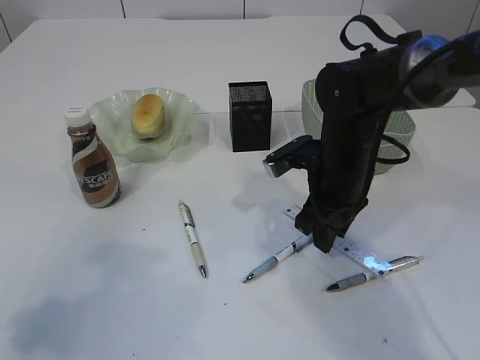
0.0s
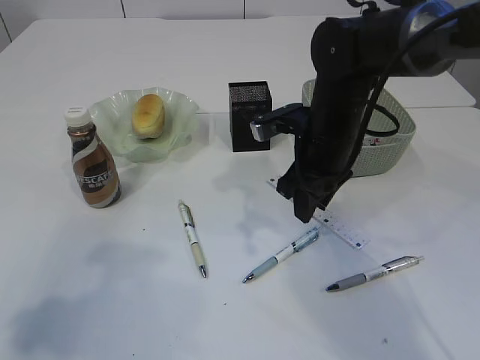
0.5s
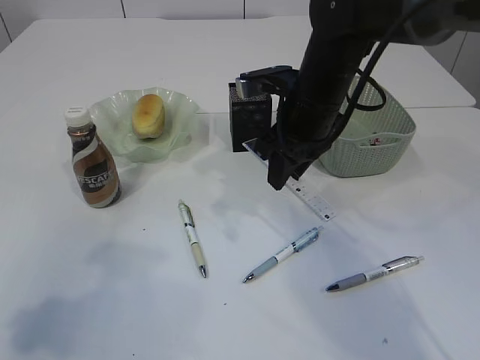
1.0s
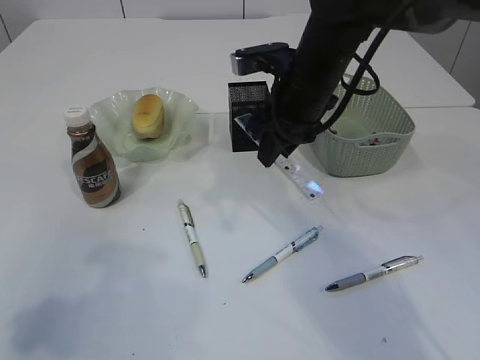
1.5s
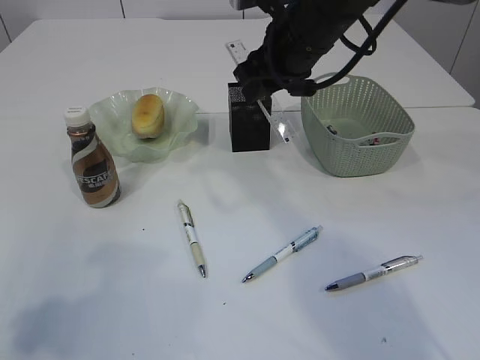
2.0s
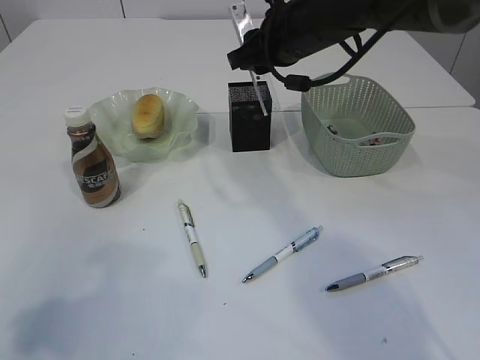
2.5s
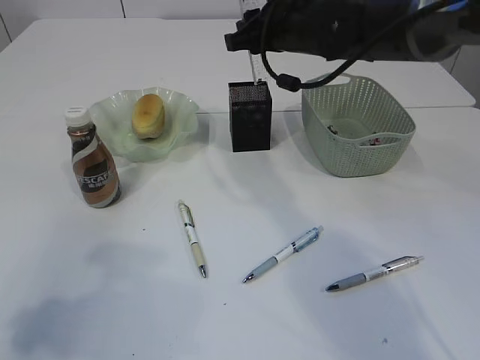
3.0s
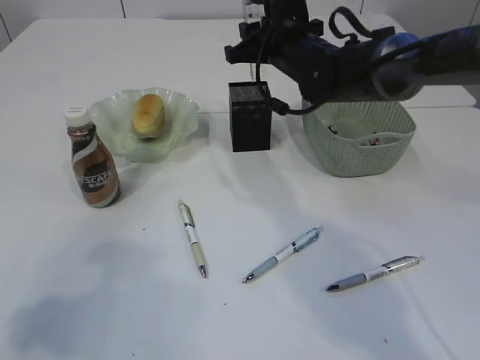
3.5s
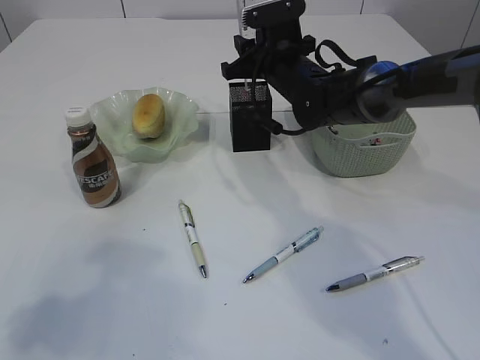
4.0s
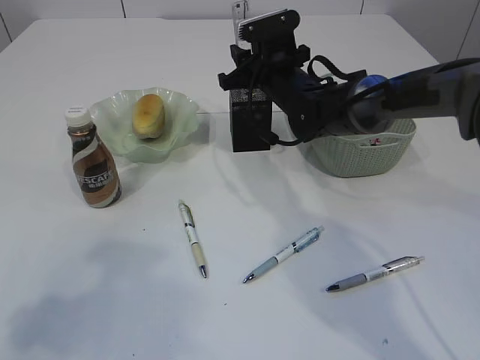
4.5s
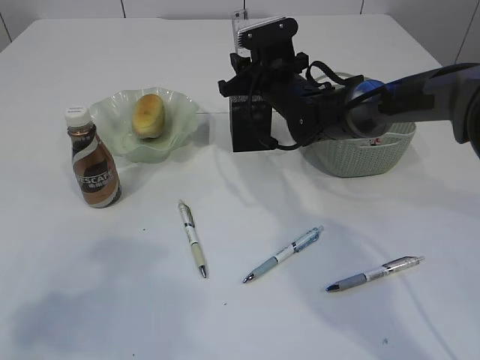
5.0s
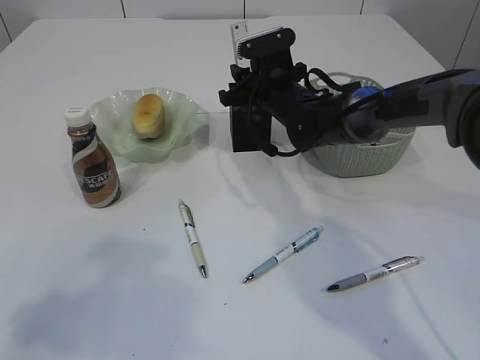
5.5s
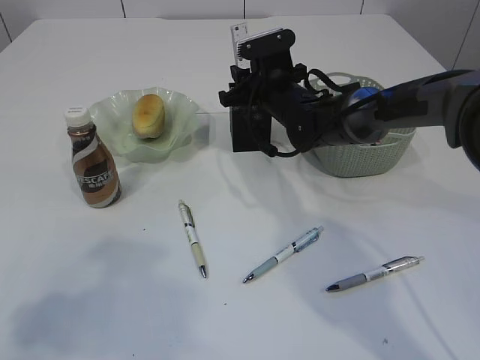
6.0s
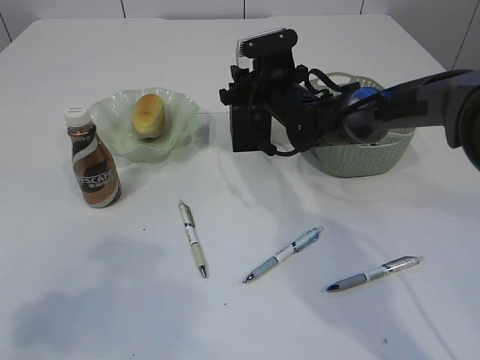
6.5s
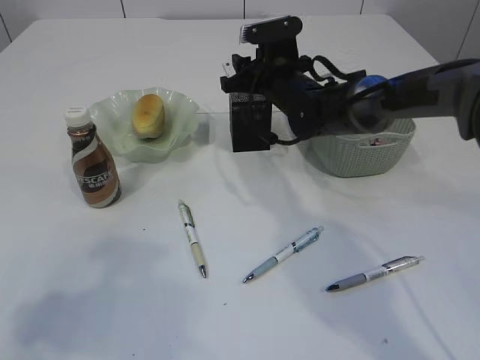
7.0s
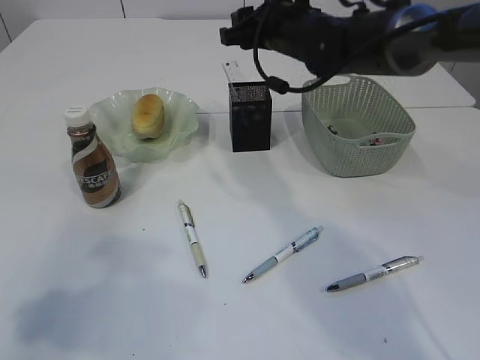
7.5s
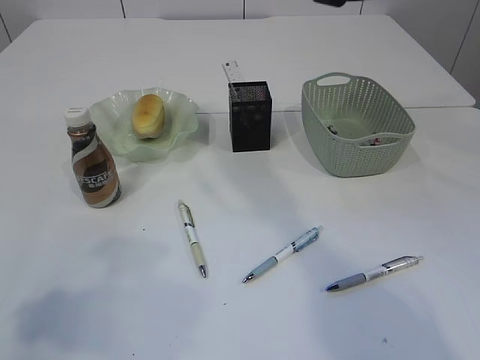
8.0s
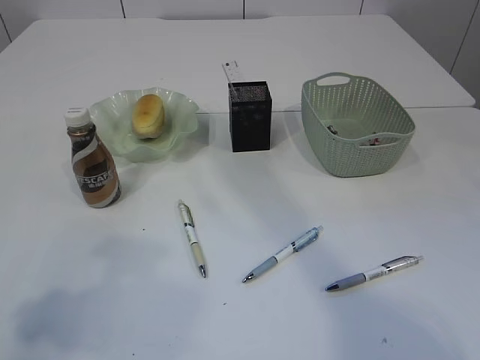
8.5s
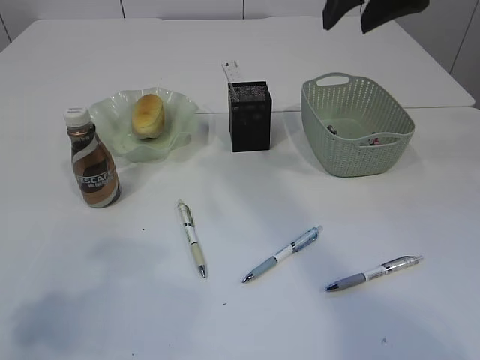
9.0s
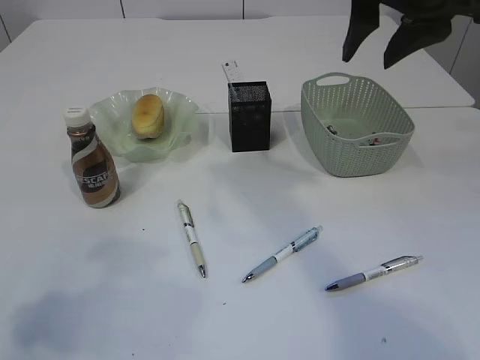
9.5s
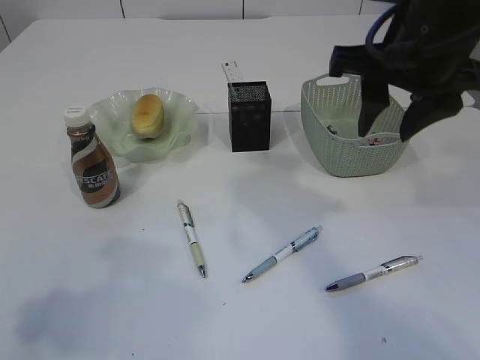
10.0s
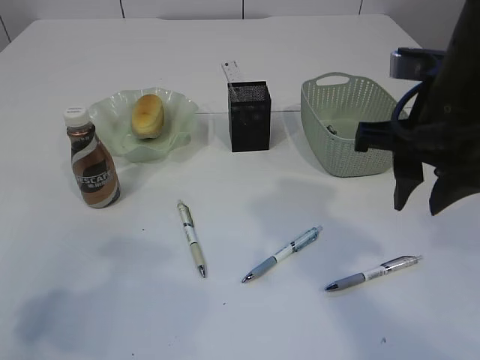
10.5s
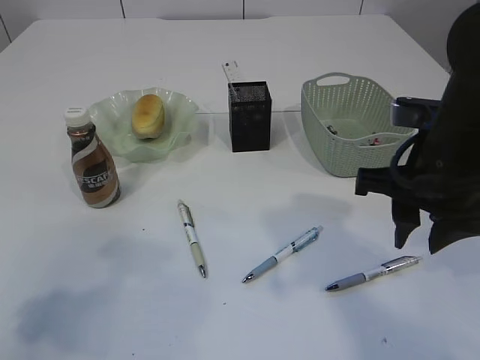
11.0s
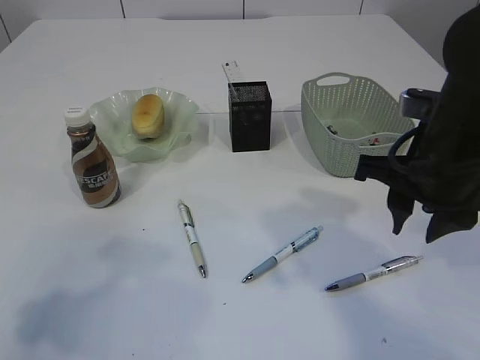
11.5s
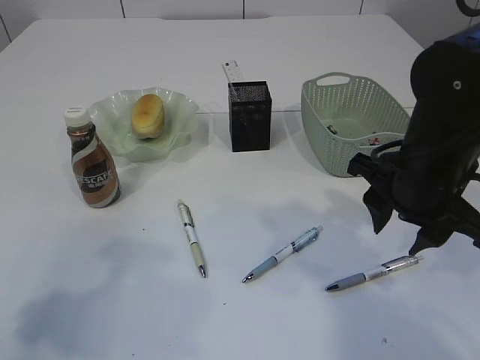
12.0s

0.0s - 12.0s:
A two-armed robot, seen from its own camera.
Step, 1.5s - 7.0s: Place the ruler into the pen holder.
0.0s - 2.0s: The right gripper heads upward and forward, covering roughly 15 cm.
2.0s - 4.0s: The right gripper shifts some 10 cm downward and forward.
4.0s - 6.0s: The grippers move only a little.
6.0s - 8.0s: The right gripper heads upward and backward, covering approximately 25 cm.
8.0s - 10.0s: The right gripper heads backward and to the right, covering roughly 10 cm.
10.0s - 12.0s: The right gripper heads downward, covering about 15 cm.

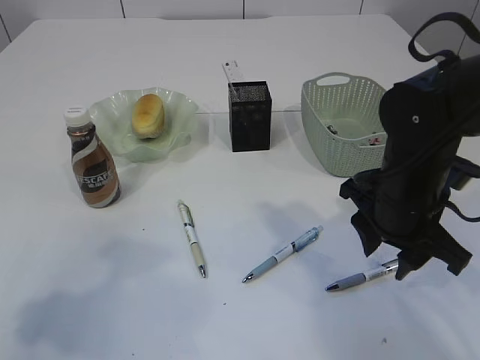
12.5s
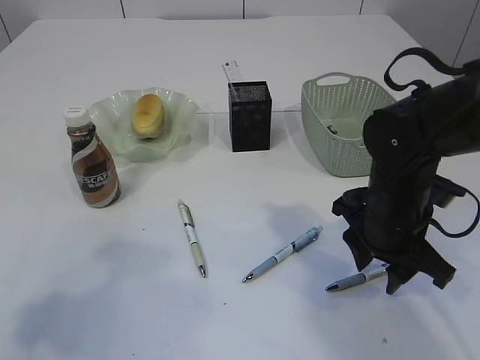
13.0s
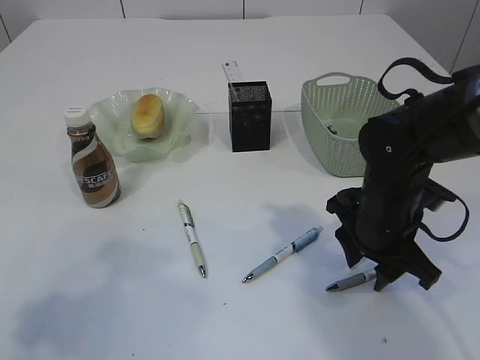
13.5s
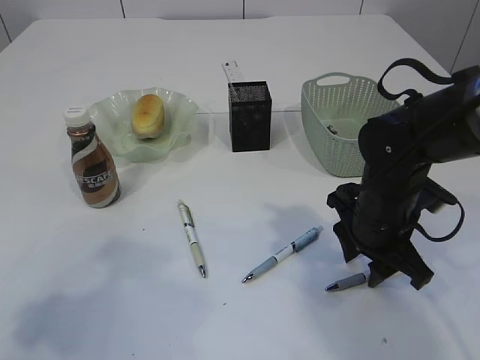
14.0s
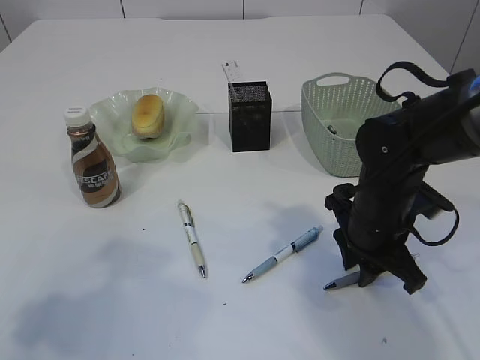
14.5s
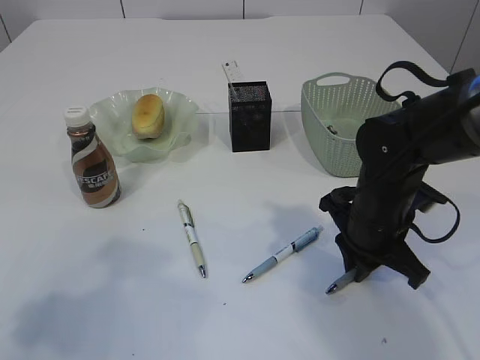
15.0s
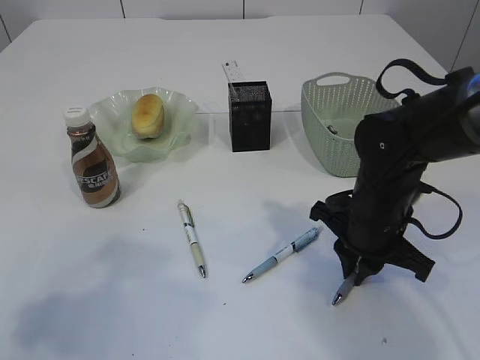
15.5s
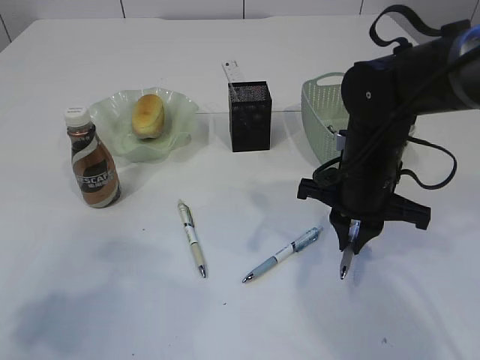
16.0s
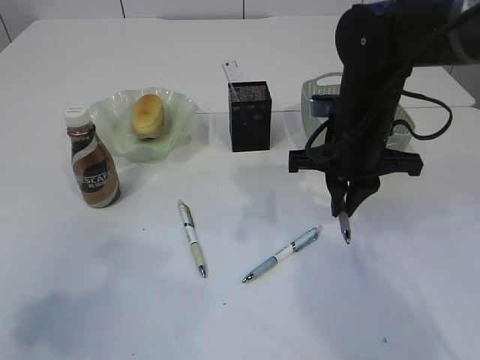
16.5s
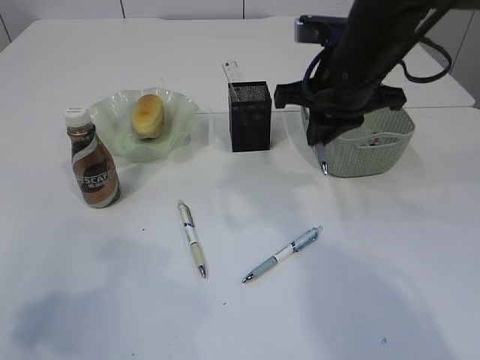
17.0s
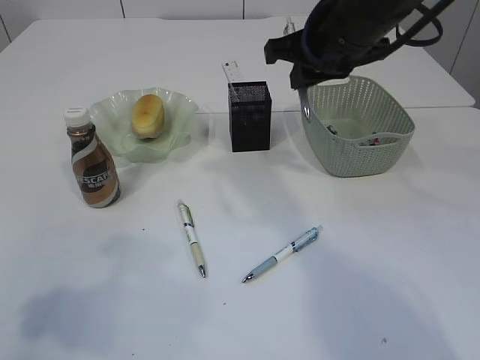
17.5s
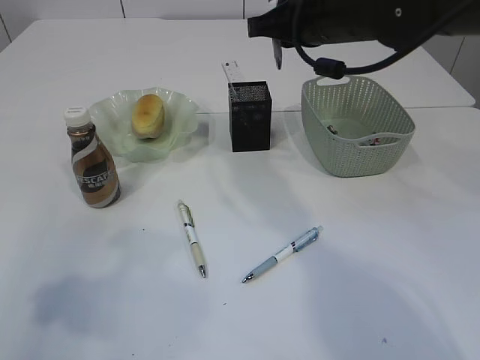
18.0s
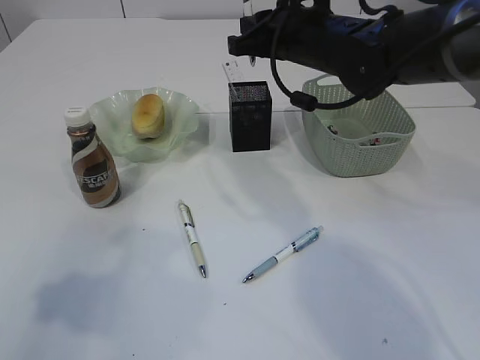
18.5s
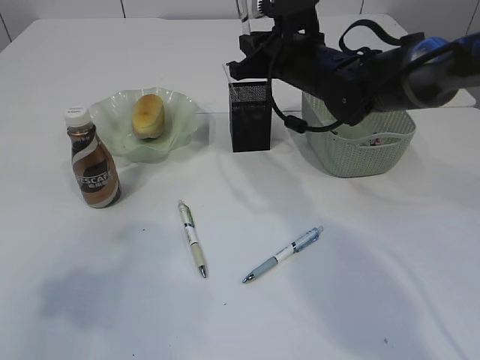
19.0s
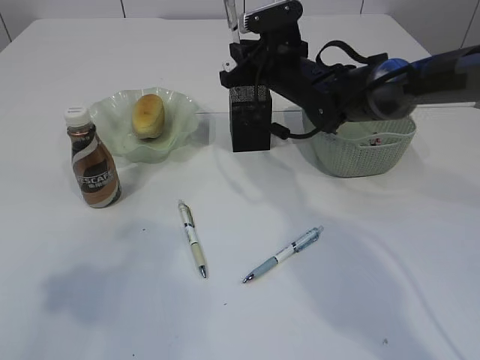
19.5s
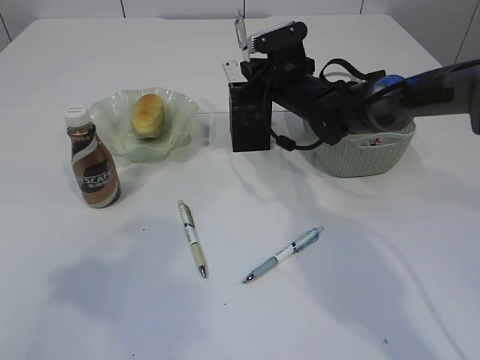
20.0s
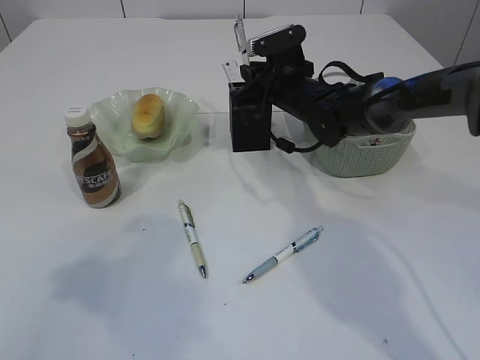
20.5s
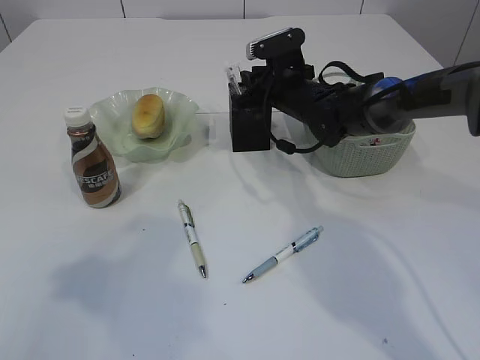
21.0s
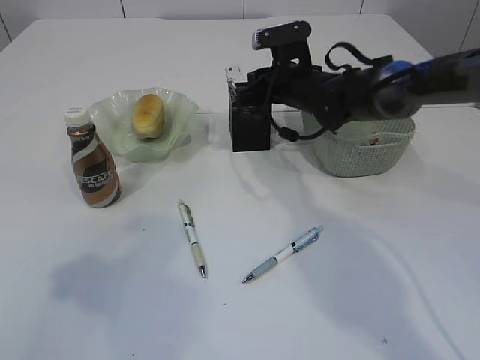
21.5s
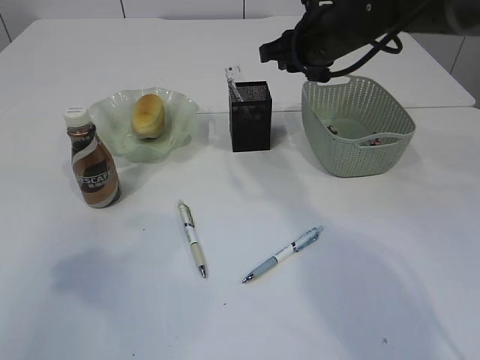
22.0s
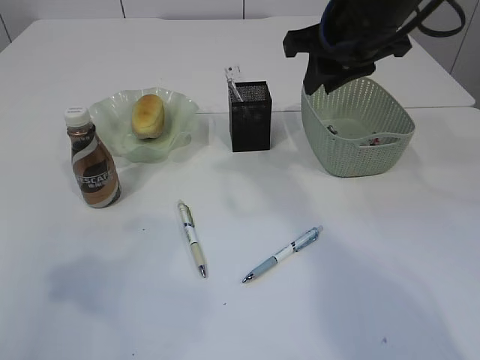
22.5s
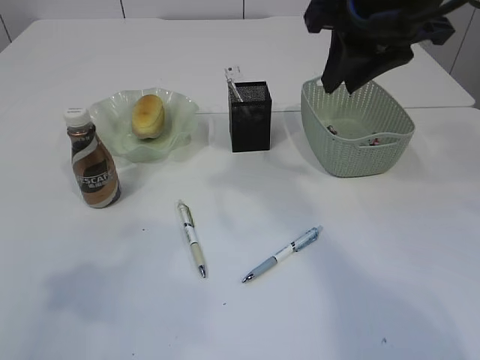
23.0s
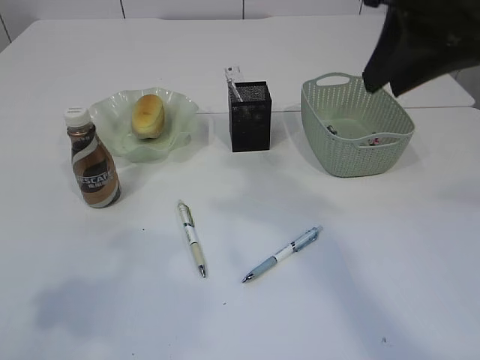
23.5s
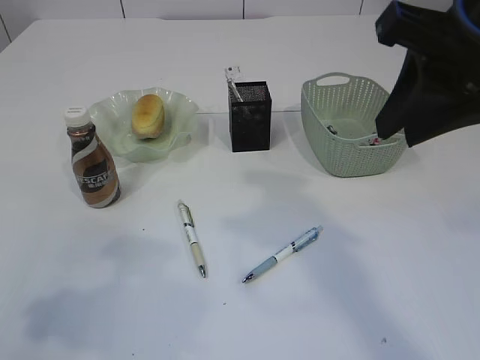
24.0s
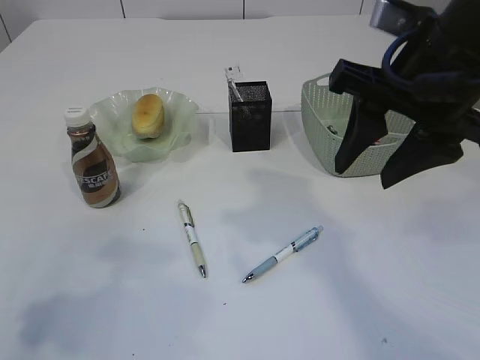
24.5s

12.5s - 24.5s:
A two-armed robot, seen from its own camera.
Step, 12.5s - 16.5s: Pick up the pen with right arm.
Step, 17.0s - 21.5s: Place the pen into the pen holder.
12.5s - 14.5s: The right gripper goes about 5 cm downward.
14.5s - 16.5s: The right gripper is displaced upward by approximately 10 cm, and closes its fingers.
16.5s - 18.5s: The right gripper goes roughly 10 cm forward and upward.
18.5s - 20.5s: The right gripper is displaced downward and forward by some 15 cm.
20.5s - 22.5s: The right gripper goes about 20 cm upward and backward.
22.5s - 24.5s: The right gripper shifts roughly 15 cm backward.

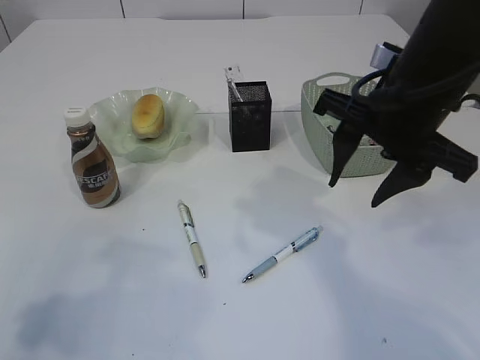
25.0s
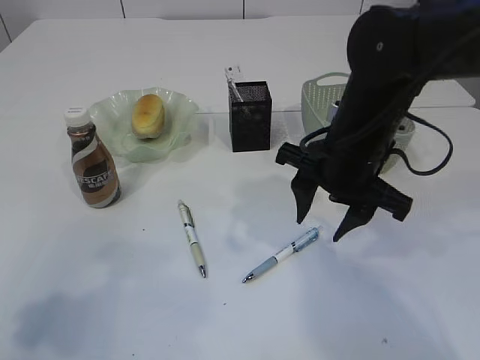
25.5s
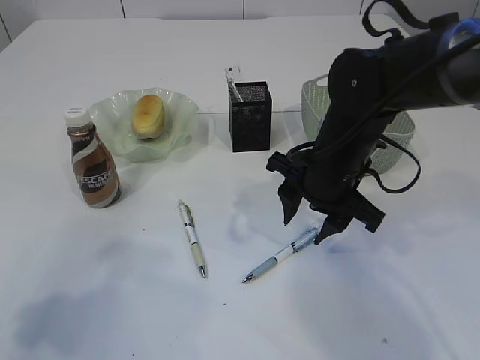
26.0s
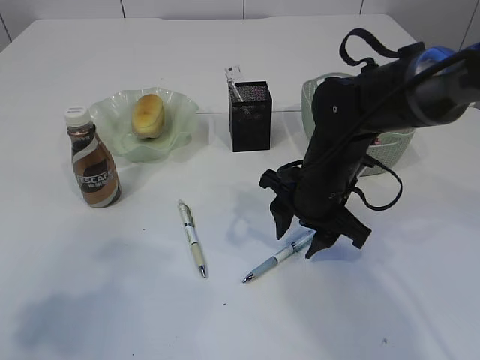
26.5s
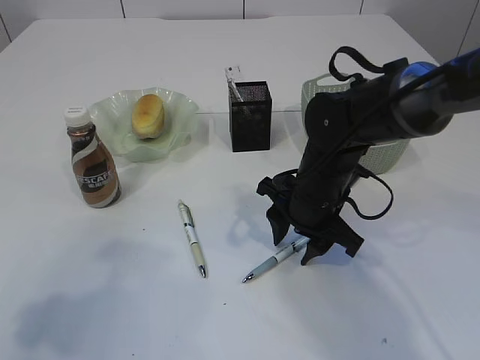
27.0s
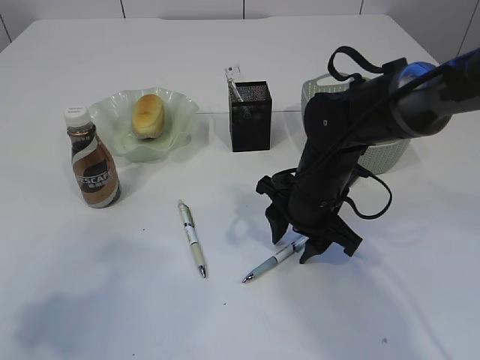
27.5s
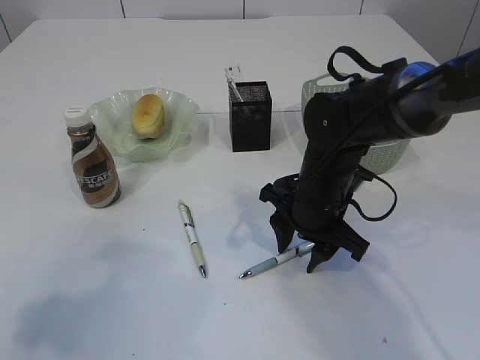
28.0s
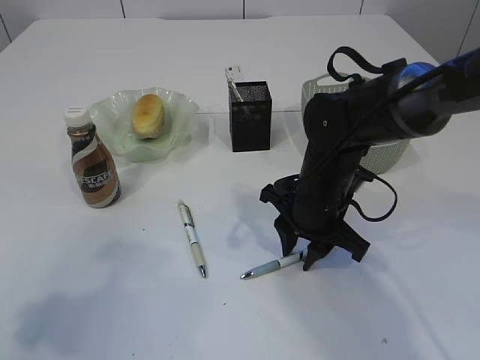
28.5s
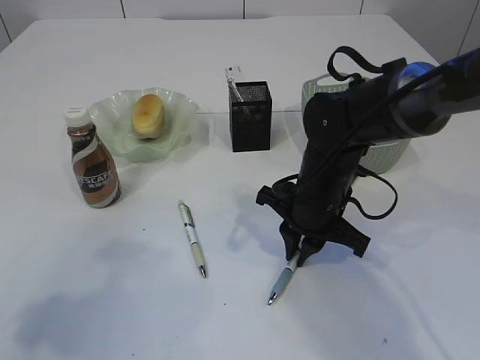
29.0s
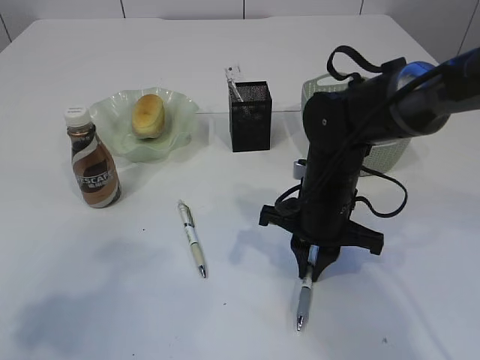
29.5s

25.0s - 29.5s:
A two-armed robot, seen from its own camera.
25.0s - 27.0s: The right gripper shifts some 15 cm downward.
27.0s - 29.5s: The right gripper closes its fingers.
